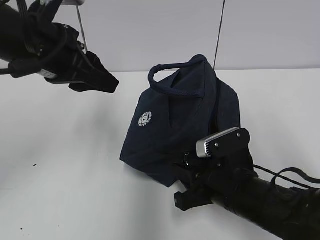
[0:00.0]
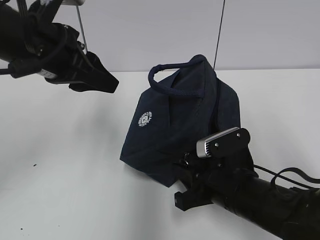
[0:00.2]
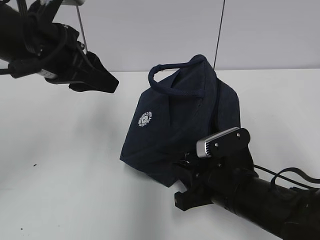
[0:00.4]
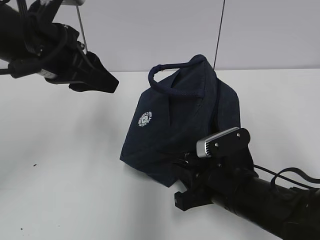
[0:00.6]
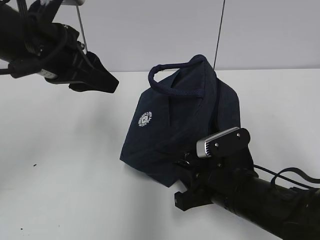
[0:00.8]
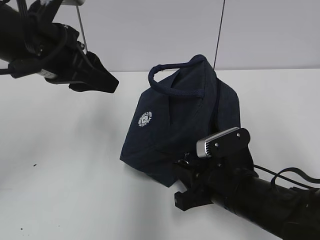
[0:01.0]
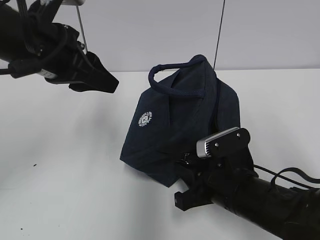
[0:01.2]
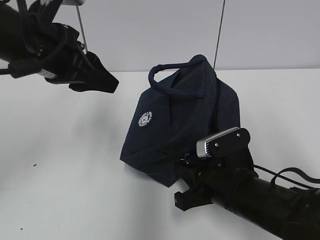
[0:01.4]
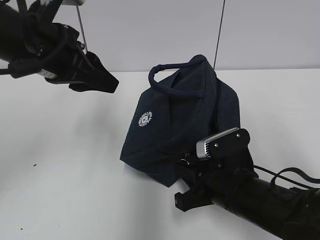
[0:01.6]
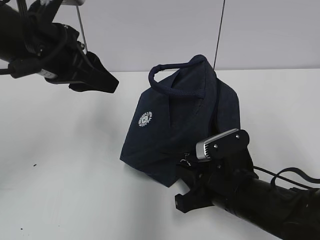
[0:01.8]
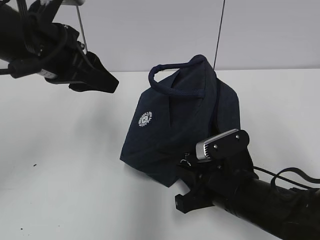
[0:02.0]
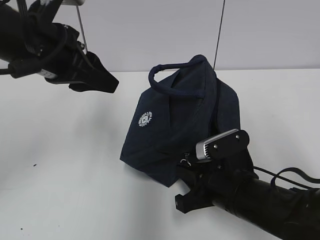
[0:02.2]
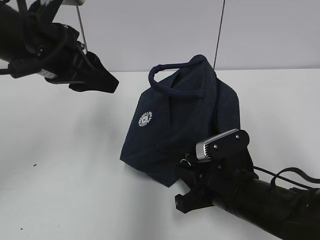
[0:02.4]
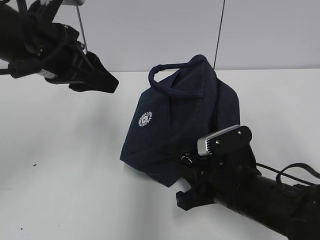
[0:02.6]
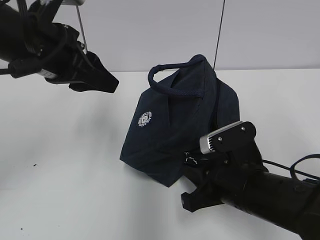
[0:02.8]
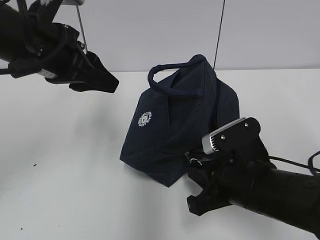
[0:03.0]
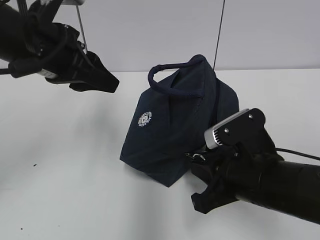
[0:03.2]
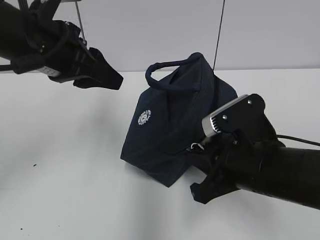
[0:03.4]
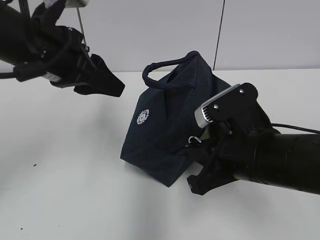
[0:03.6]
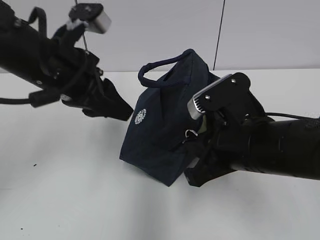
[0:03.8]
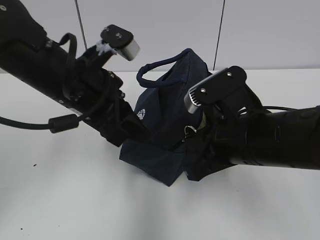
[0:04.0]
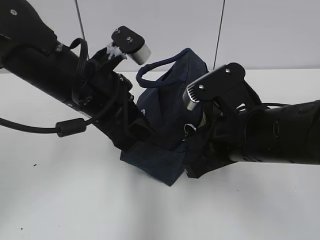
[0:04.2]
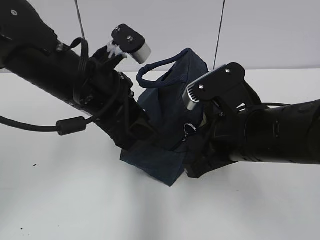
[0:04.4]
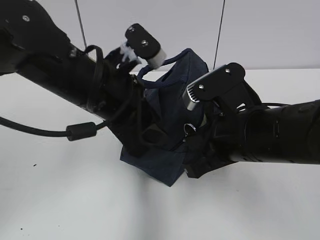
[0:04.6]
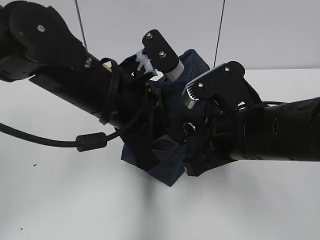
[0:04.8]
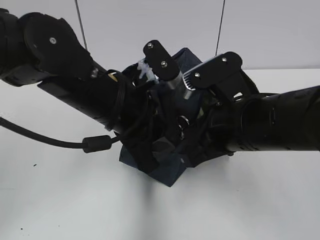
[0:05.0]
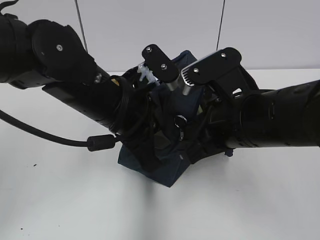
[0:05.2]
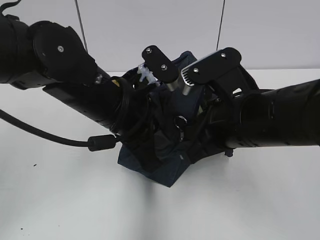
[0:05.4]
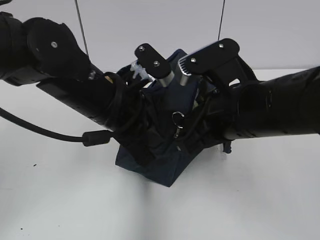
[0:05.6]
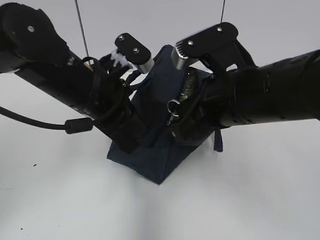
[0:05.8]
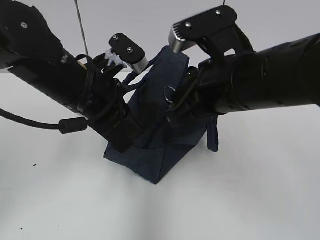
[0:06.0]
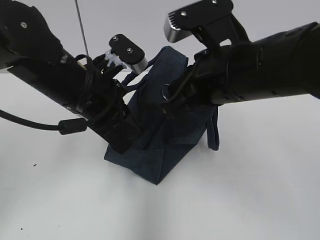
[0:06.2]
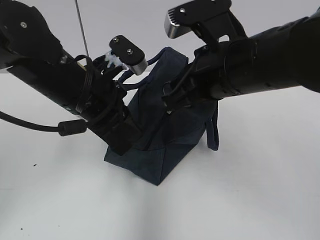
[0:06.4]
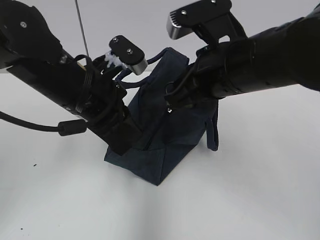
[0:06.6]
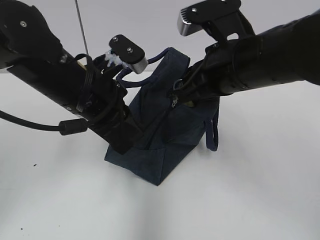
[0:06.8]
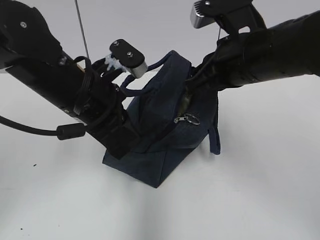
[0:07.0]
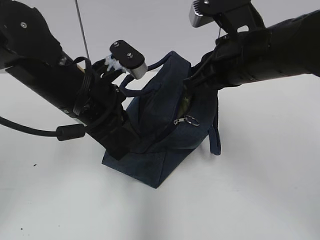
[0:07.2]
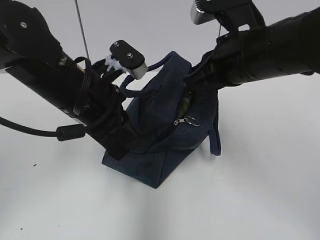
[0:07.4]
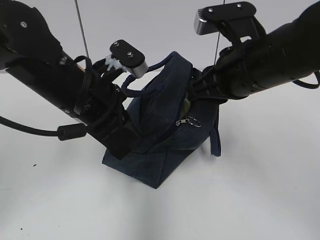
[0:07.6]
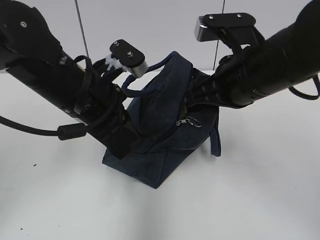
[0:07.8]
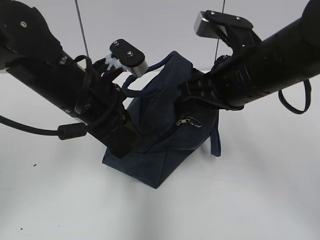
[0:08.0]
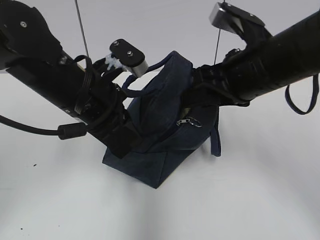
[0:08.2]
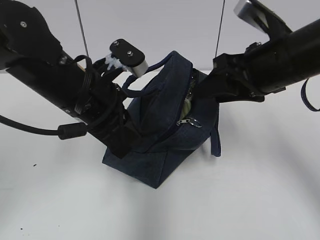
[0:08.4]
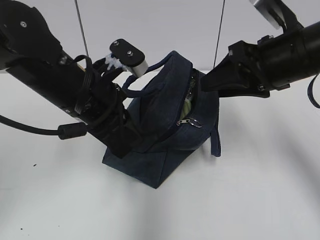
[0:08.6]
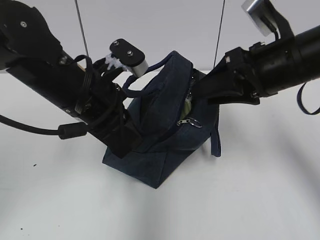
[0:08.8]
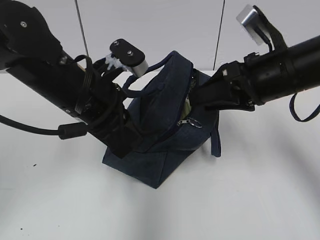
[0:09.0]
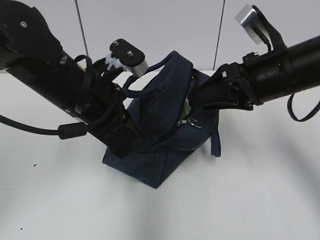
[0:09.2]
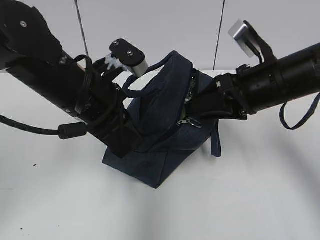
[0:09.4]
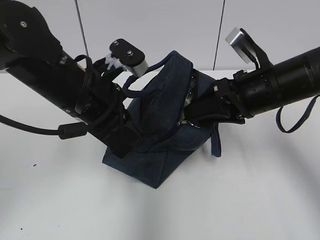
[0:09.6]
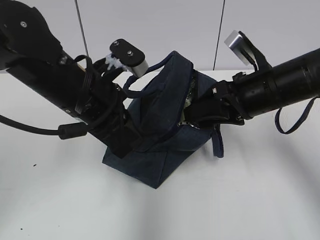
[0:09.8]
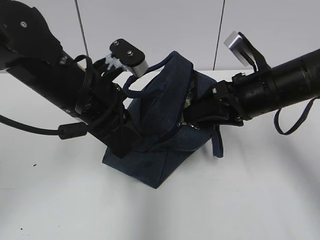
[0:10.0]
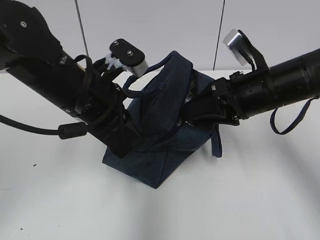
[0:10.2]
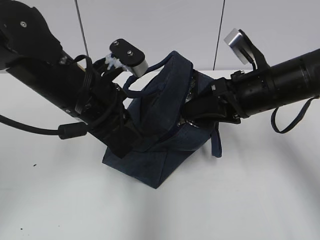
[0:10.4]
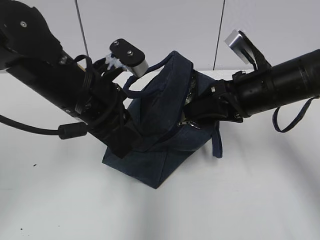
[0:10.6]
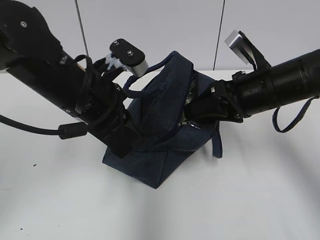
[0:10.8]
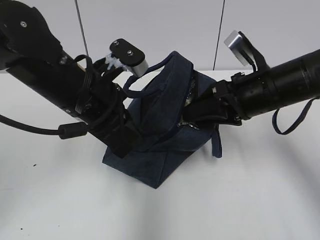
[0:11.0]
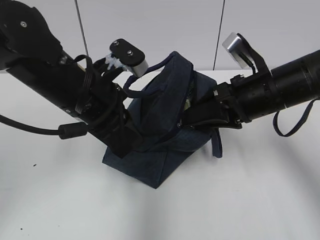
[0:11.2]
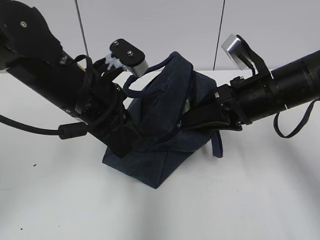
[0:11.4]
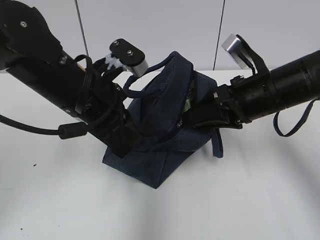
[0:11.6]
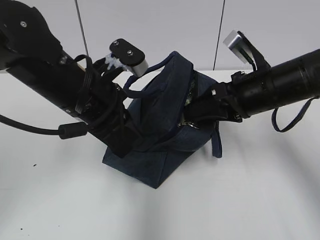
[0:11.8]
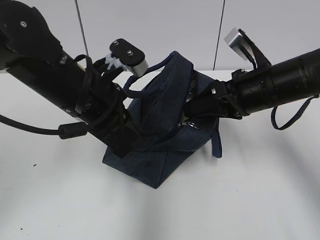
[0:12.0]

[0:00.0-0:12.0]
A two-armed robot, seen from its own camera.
0:00.0 to 0:01.6: Neither gripper changes place.
0:01.6 to 0:03.0: The grippers move only a little.
0:03.0 to 0:04.4: The left gripper heads to the right, covering approximately 5 cm. The right gripper is displaced upward by approximately 10 cm.
0:04.4 to 0:06.0: The left gripper closes. Meanwhile the right gripper goes about 5 cm upward.
0:06.0 to 0:07.6: The grippers move only a little.
0:07.6 to 0:09.0: The right gripper changes place by about 5 cm, and opens its fingers.
0:09.0 to 0:12.0: The grippers stay close to where they were, moving slightly.

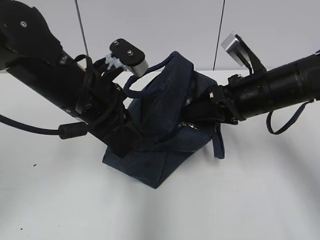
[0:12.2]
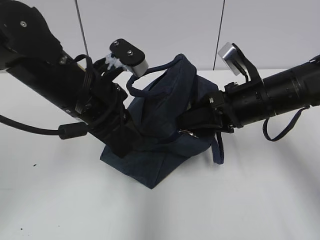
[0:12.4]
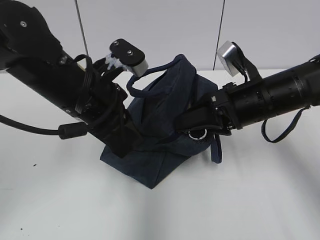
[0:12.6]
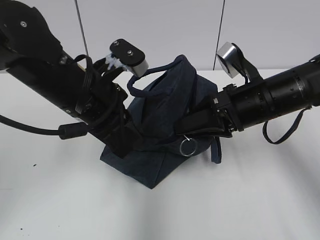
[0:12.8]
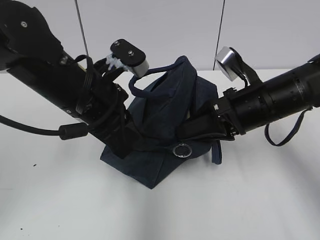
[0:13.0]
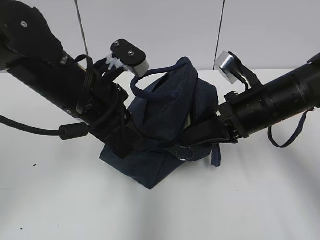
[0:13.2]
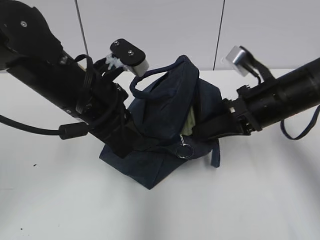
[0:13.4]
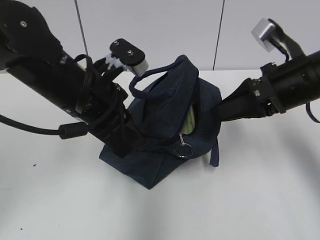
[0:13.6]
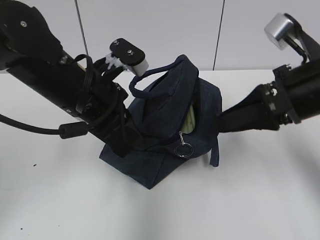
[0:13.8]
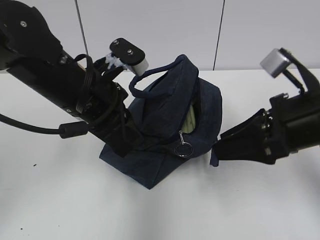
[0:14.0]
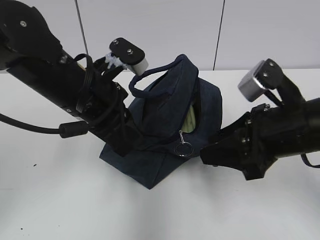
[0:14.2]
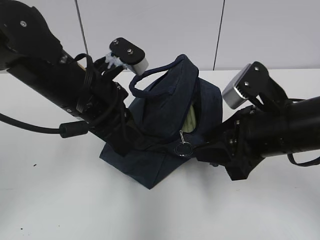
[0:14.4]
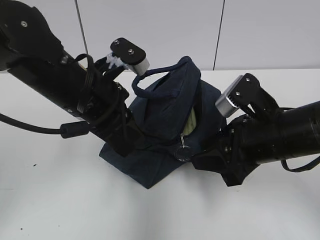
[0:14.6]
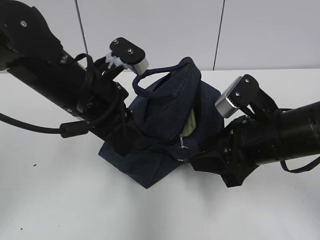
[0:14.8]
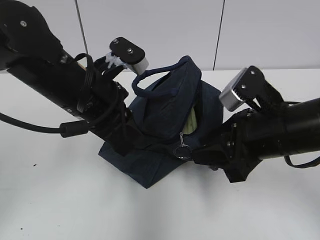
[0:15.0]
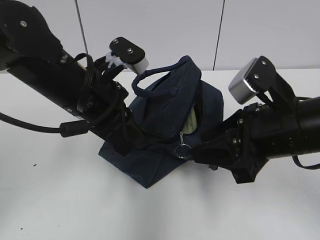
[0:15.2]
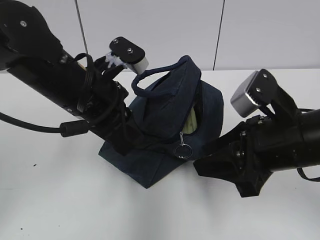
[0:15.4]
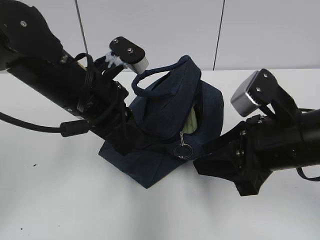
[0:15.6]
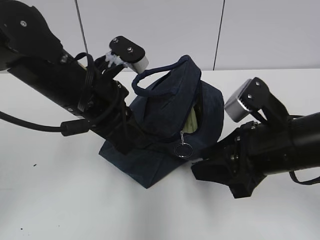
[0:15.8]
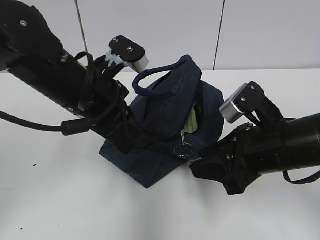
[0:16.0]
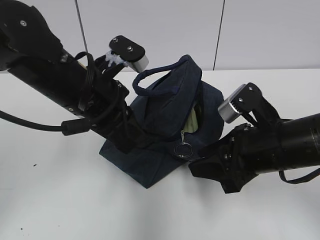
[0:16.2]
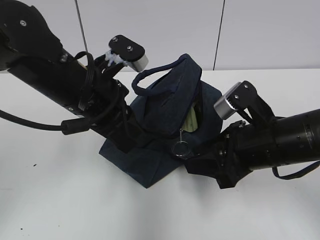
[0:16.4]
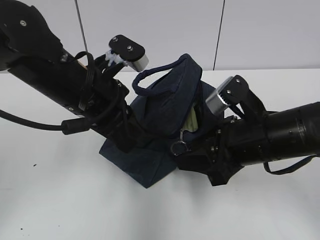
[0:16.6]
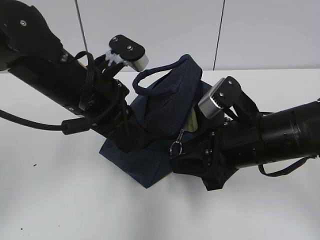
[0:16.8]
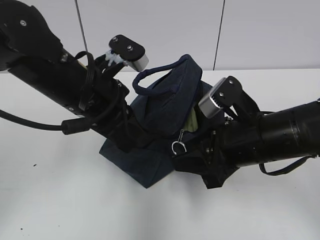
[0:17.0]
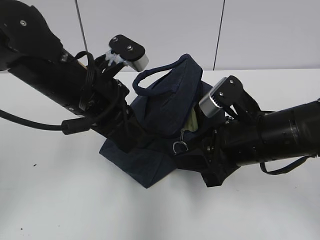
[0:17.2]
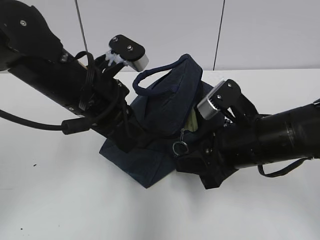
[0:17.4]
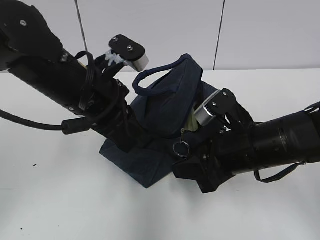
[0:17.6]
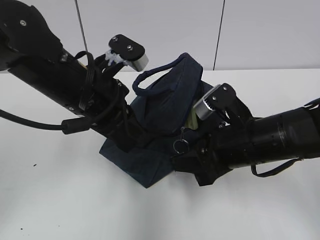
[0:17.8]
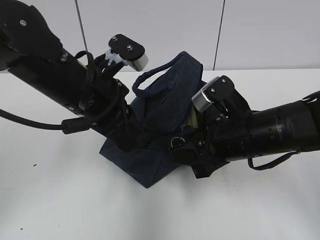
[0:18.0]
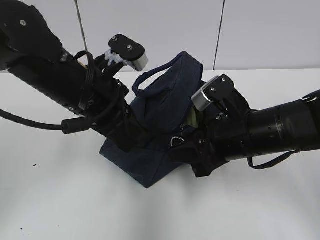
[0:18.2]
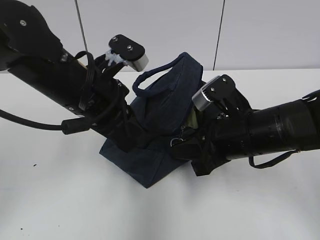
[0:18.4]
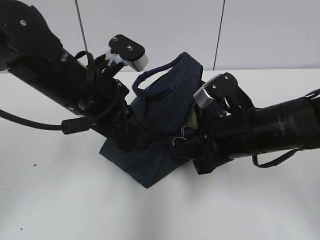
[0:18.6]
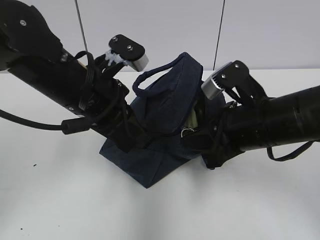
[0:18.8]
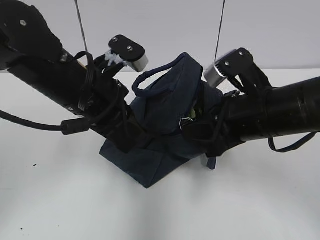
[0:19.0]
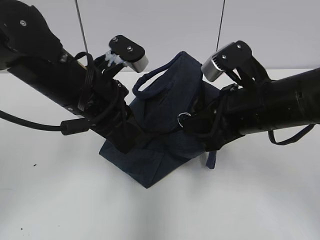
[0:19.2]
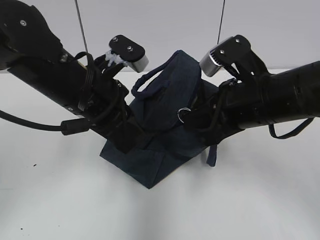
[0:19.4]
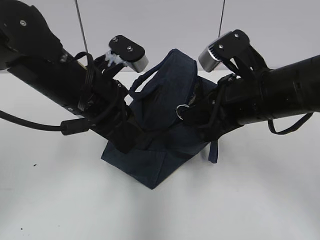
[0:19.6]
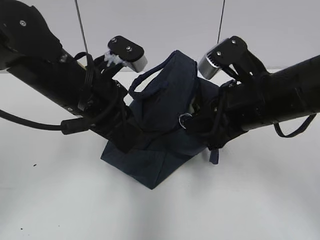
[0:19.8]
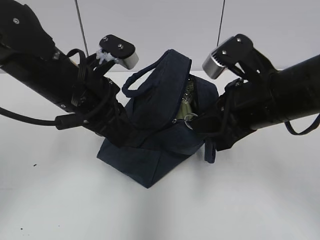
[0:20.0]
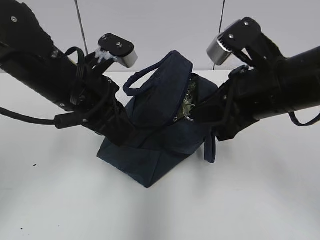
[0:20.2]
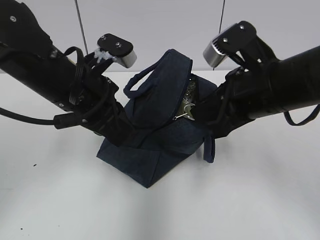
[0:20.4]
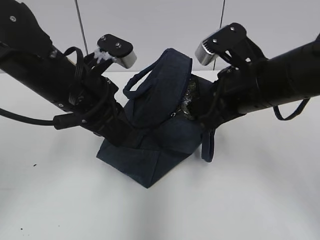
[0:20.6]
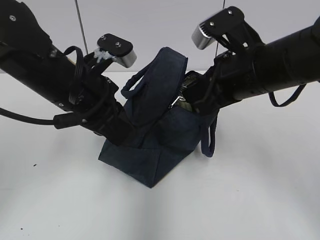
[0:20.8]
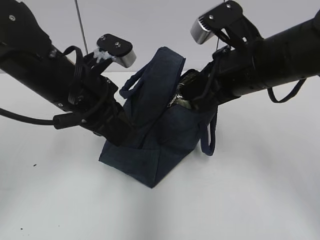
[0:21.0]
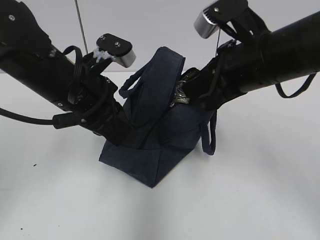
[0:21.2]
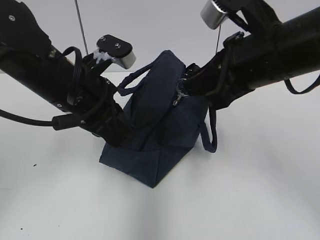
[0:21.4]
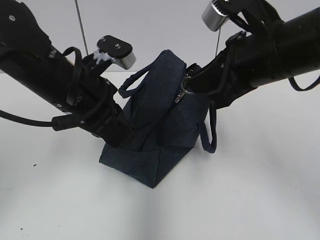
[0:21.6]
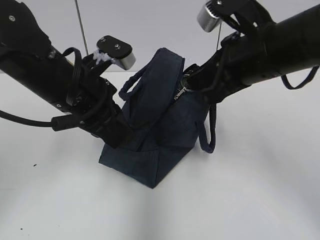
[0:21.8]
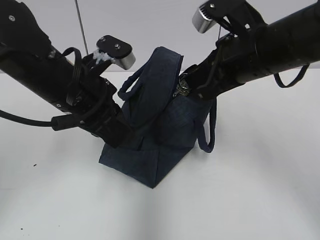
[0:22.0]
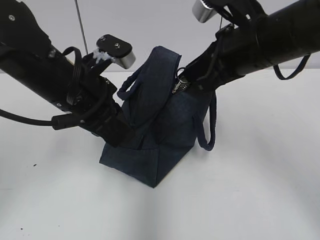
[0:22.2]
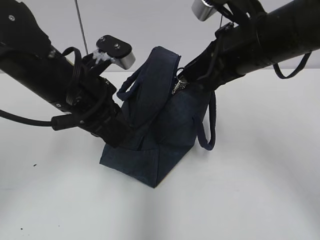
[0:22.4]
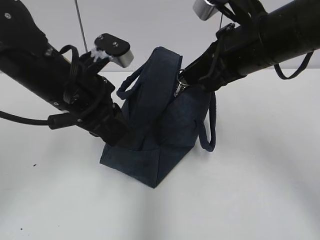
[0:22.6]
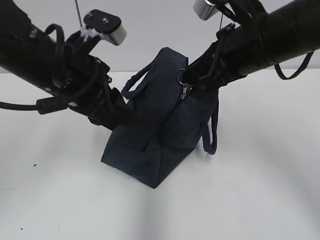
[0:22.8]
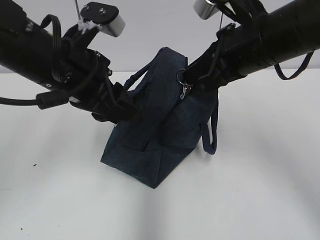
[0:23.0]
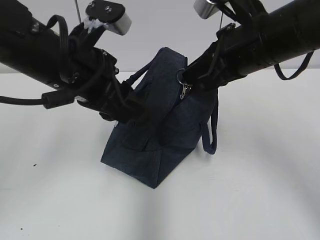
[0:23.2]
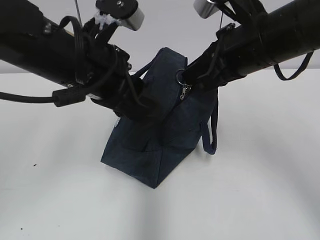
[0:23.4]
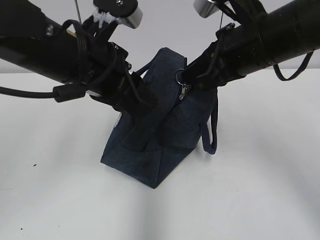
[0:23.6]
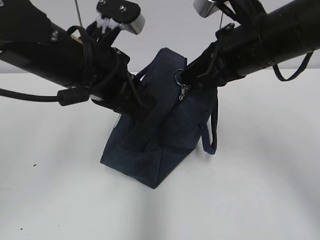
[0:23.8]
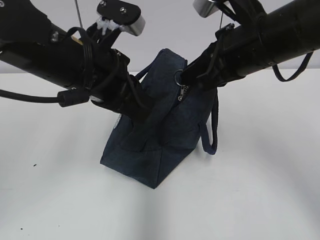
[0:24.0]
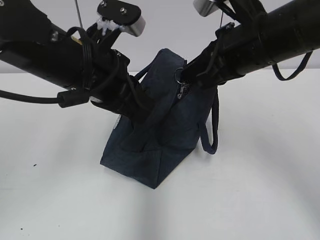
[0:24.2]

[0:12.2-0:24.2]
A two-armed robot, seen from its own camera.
0:12.2 to 0:13.8: The right gripper travels backward and upward by some 10 cm.
0:13.8 to 0:15.2: The right gripper changes place by some 5 cm.
0:15.2 to 0:16.6: There are only small adjustments of the grippers.
0:16.6 to 0:18.2: There are only small adjustments of the grippers.
0:18.2 to 0:19.8: The right gripper is displaced upward by some 5 cm, and closes its fingers.
0:21.2 to 0:22.6: There are only small adjustments of the grippers.
0:22.6 to 0:24.2: The left gripper opens, then closes once more.
